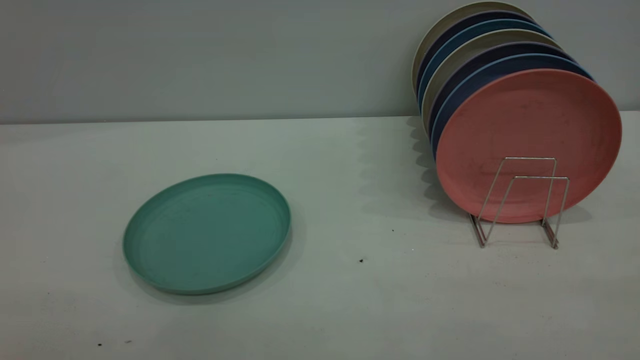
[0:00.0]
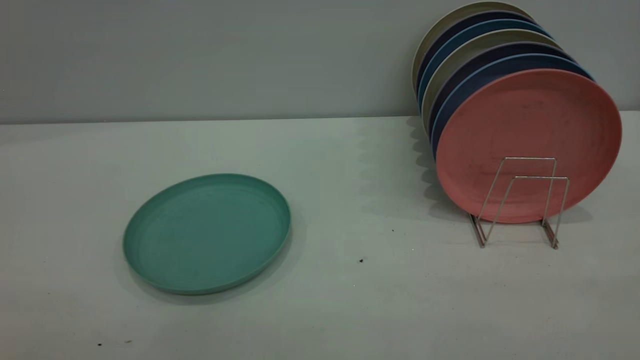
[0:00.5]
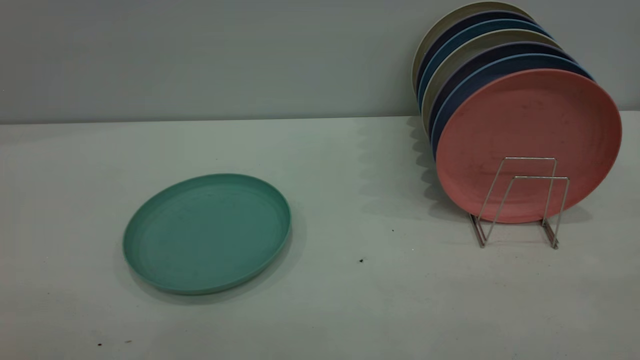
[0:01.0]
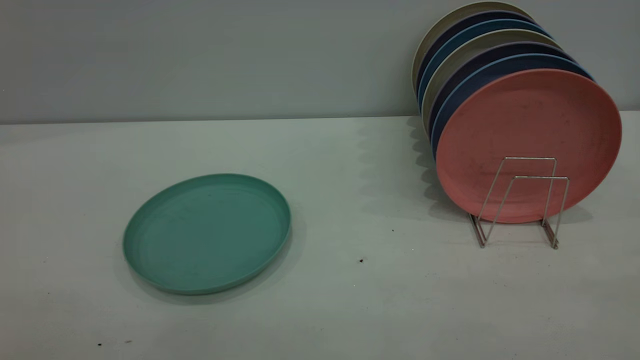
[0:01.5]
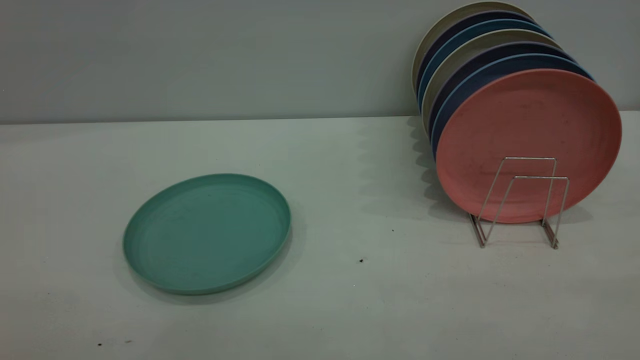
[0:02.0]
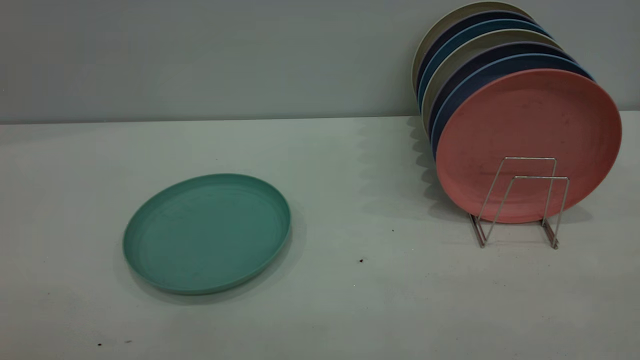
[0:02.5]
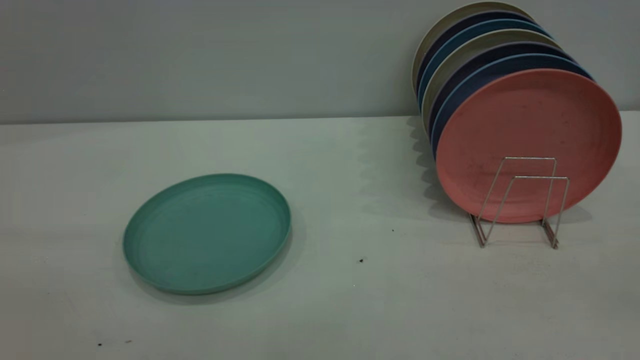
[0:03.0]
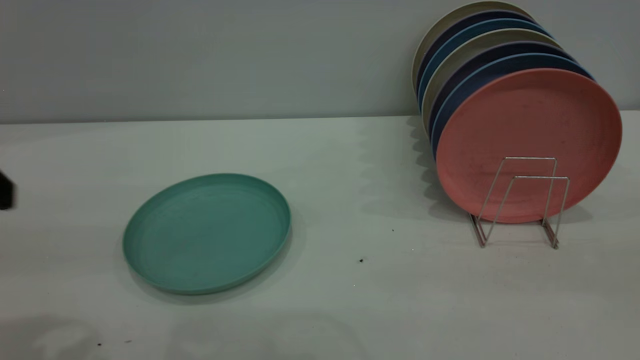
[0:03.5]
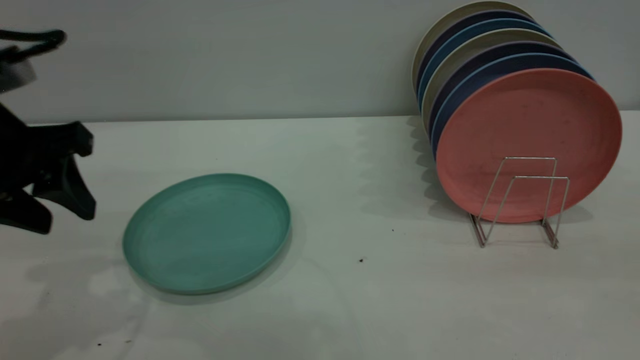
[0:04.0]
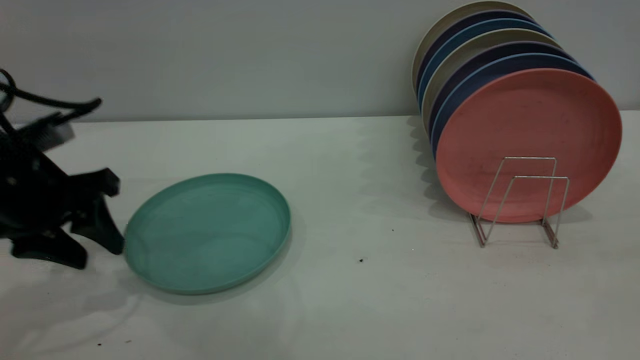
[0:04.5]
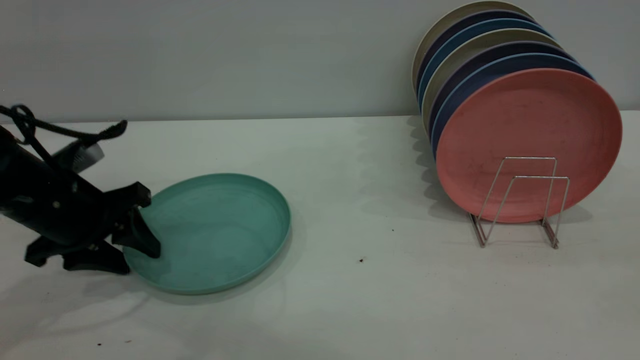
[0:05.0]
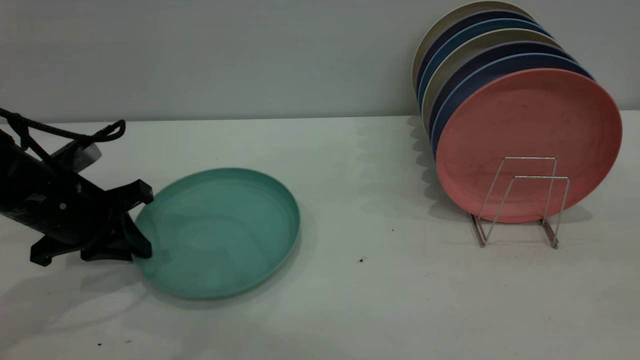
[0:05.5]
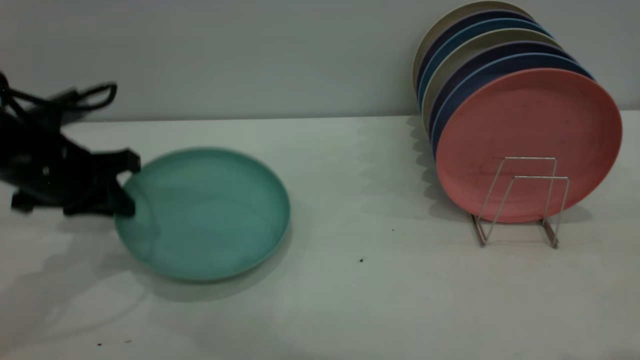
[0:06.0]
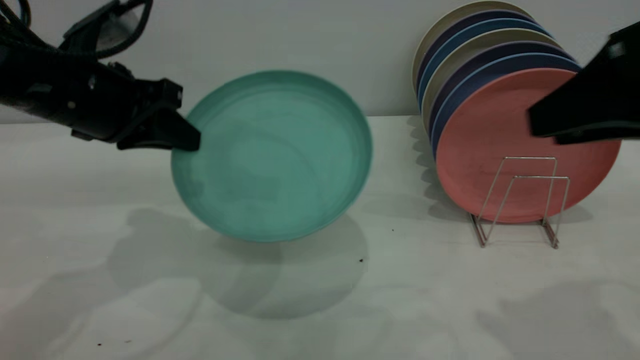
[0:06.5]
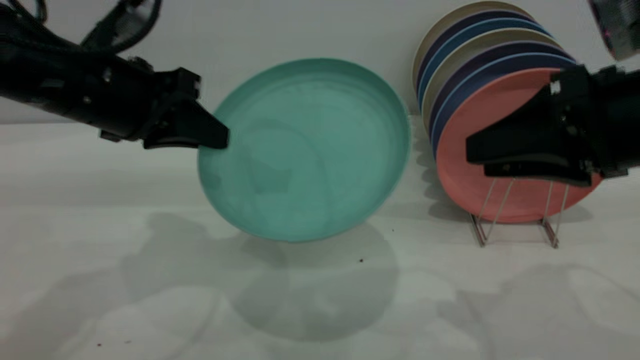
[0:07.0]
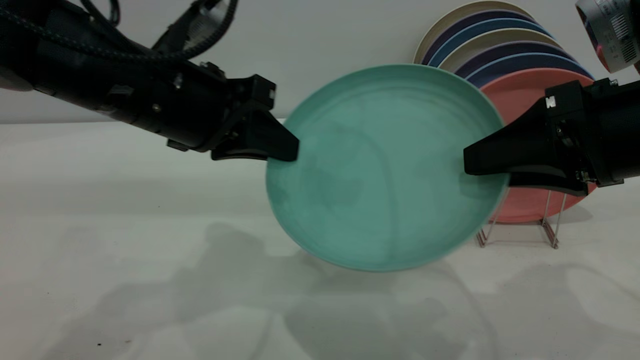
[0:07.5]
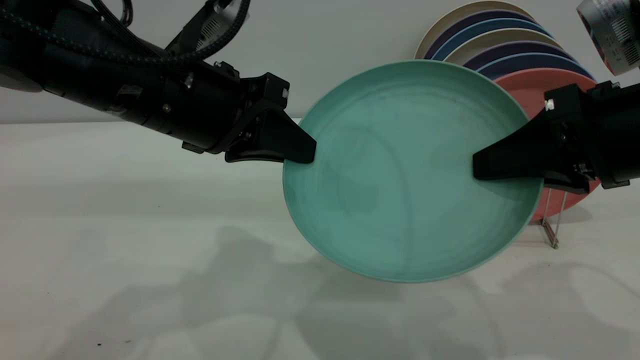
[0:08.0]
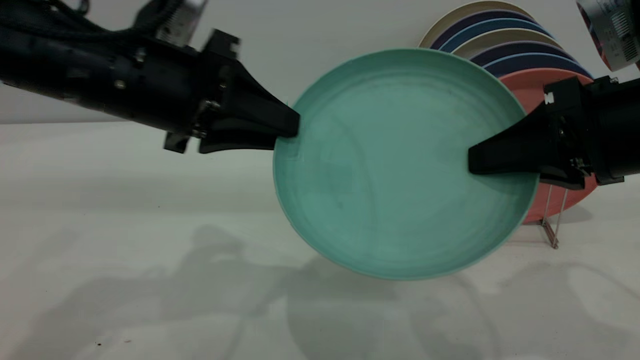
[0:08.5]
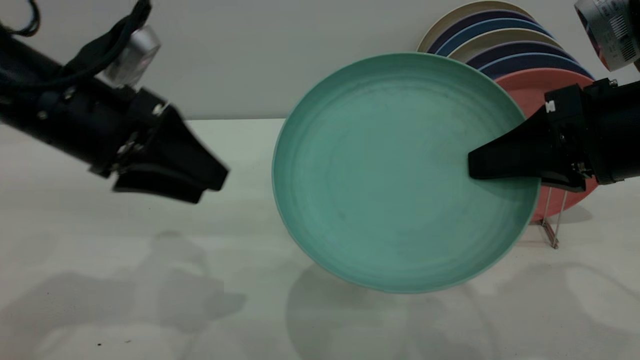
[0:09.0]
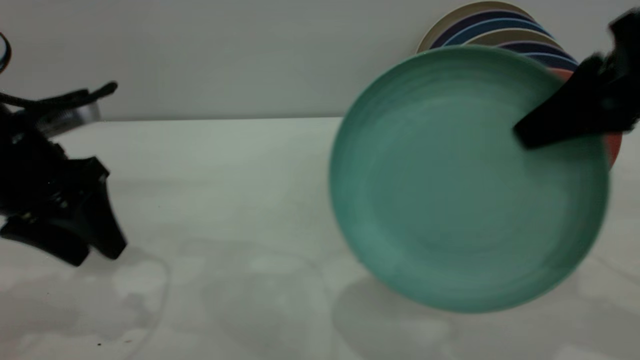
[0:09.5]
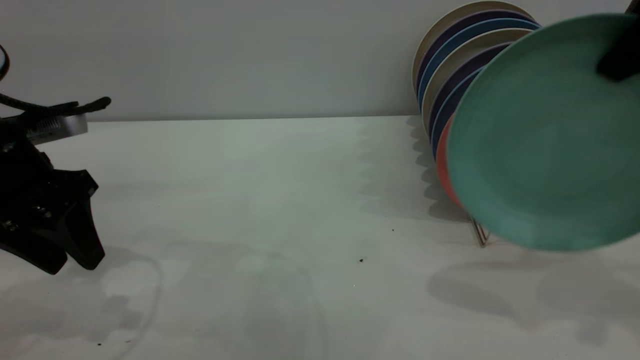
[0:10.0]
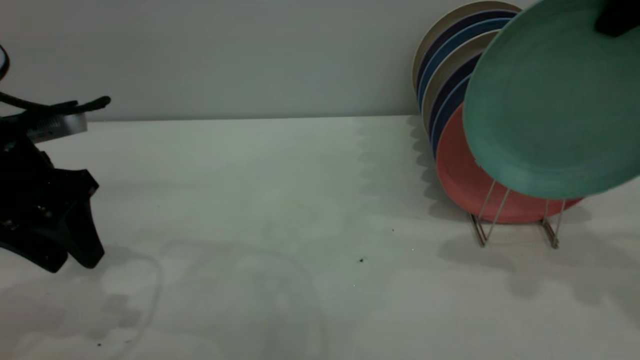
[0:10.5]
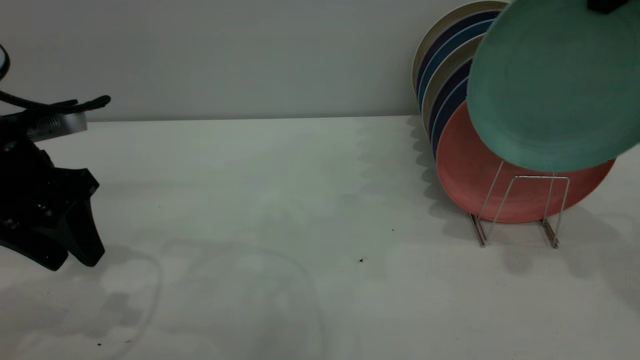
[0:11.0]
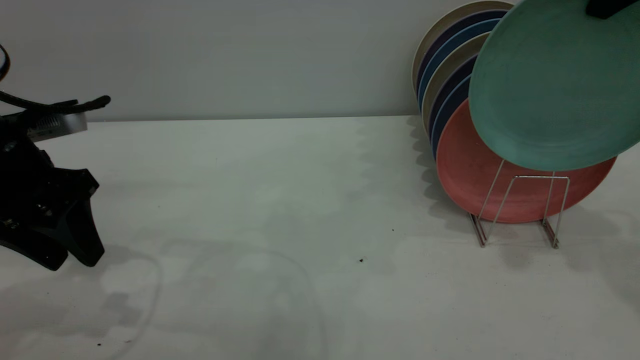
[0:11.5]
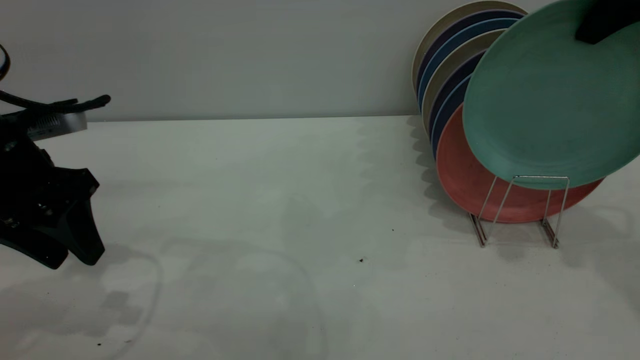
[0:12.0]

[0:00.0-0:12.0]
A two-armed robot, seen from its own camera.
Task of the whole recording: the left gripper grasp the green plate, the left gripper pass the green plate to the right gripper, and the right gripper place the green plate on the plate rack.
Step, 0:00.0 to 0:06.0: Pick up the plate with the left gripper.
Step, 0:06.5 to 0:08.5: Pass the plate from the left gripper to the right gripper.
0:00.0 to 0:02.0: Both grippers stay put.
0:02.0 to 0:04.0: The left gripper moves forward and downward, approximately 35 cm.
0:04.0 to 0:06.0: The left gripper is displaced downward and forward by approximately 10 cm, and closes up.
0:06.0 to 0:08.0: The right gripper moves downward and forward, roughly 15 cm, and closes its fingers. The left gripper moves to the right and upward, approximately 15 cm.
0:08.0 to 0:10.0: The right gripper is displaced upward by some 15 cm. The left gripper heads to the left, covering approximately 15 cm, and opens.
0:10.0 to 0:12.0: The right gripper is displaced forward by roughly 10 cm.

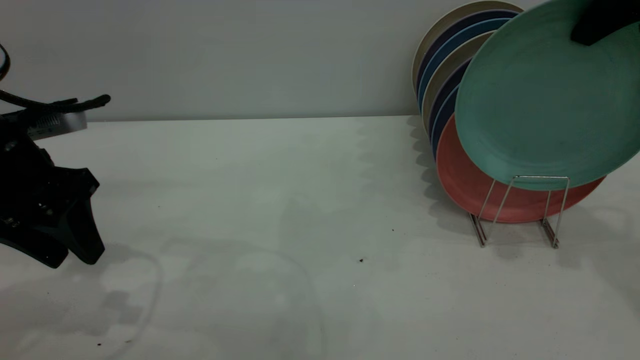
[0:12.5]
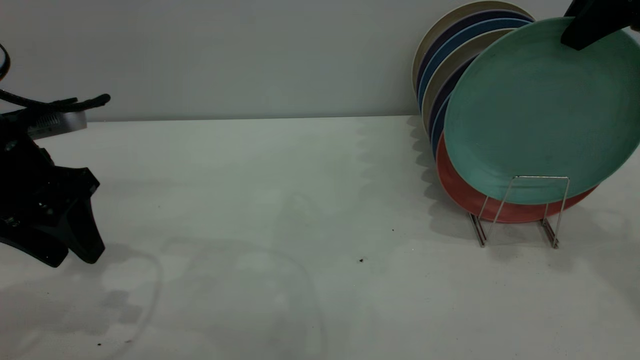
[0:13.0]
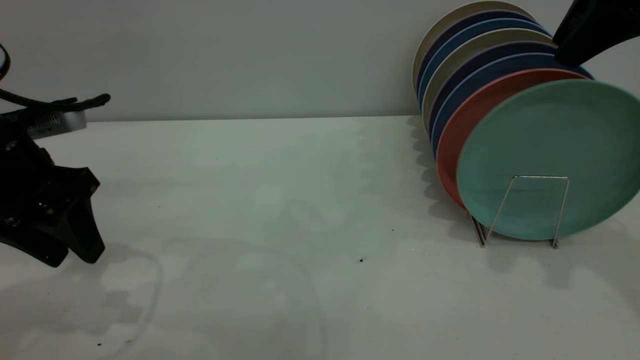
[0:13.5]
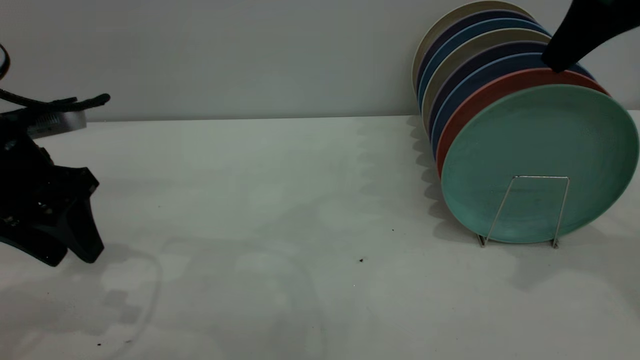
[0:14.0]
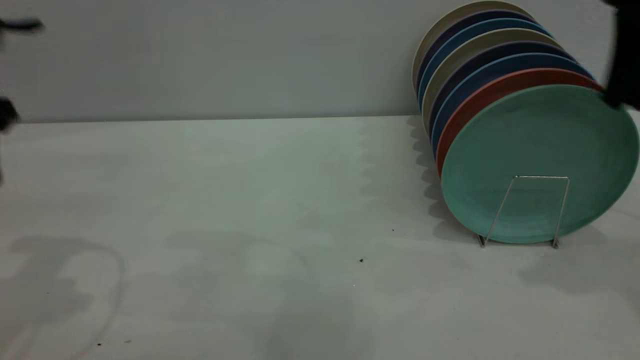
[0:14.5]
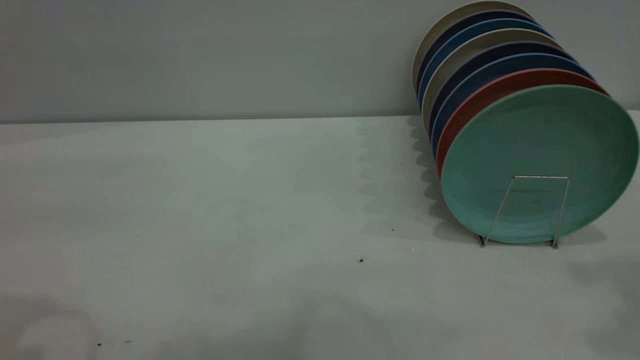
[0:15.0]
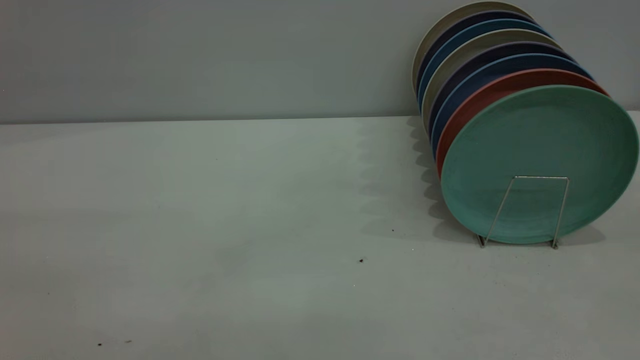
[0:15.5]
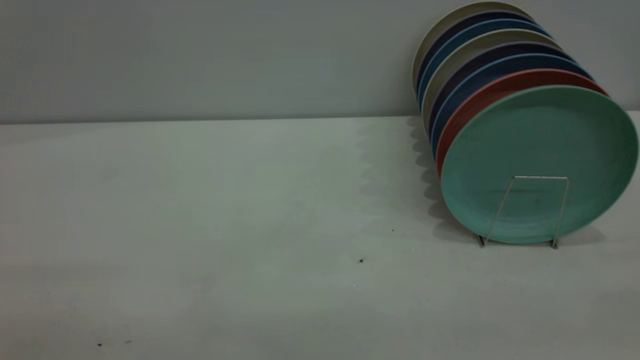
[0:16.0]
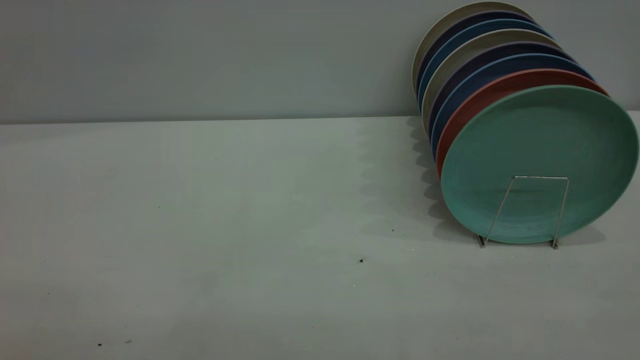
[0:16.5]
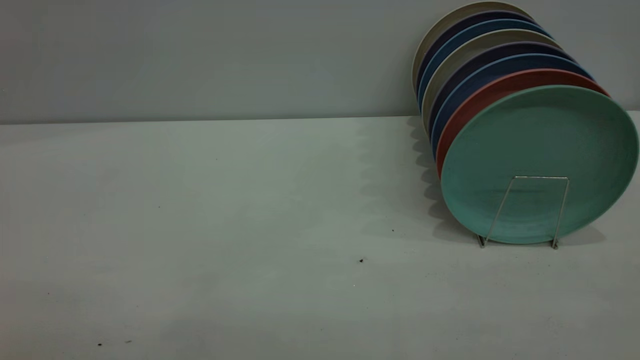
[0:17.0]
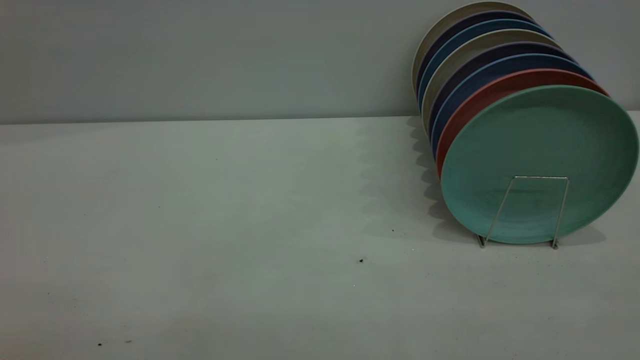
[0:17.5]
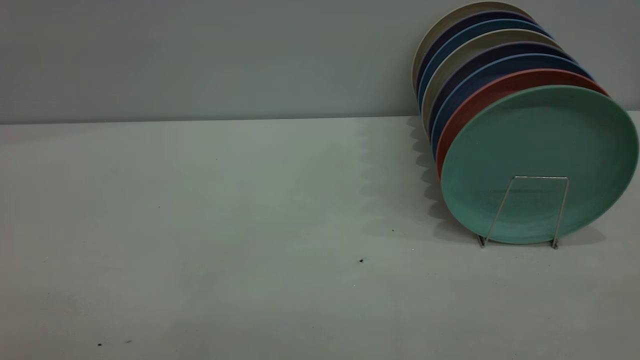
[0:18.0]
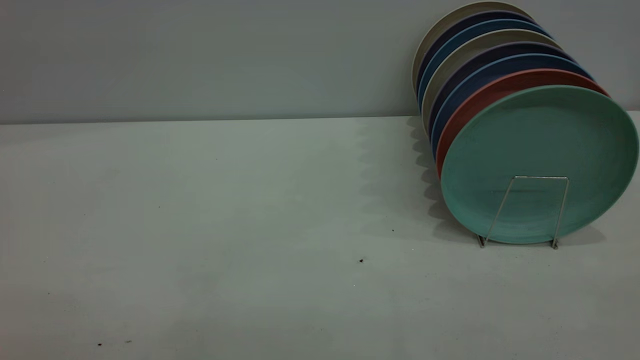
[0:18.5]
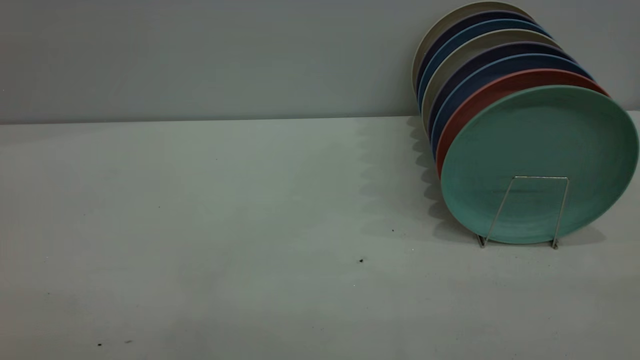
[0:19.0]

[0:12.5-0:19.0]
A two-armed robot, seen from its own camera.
Task of the whole recording: the left gripper grasp the green plate, the left gripper pass the green plate to the right gripper, and the right gripper place the green plate on the plate rack.
Step, 0:12.5 to 0:14.5: Place the plate on the shelf.
0:12.5 to 0:14.5: The right gripper opens up; the left gripper moves upward, approximately 10 cm.
0:14.5 to 0:17.0: The right gripper travels backward by roughly 35 cm.

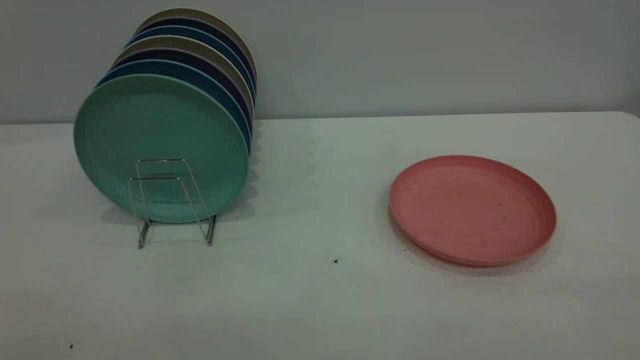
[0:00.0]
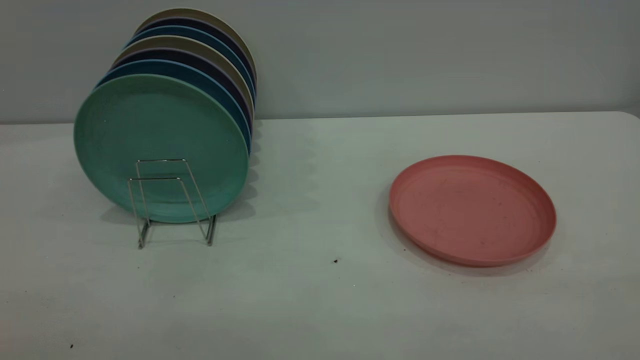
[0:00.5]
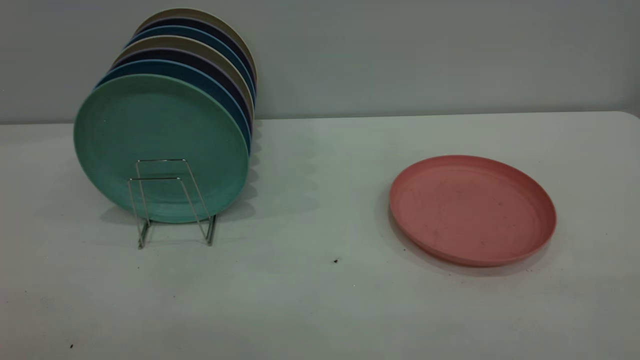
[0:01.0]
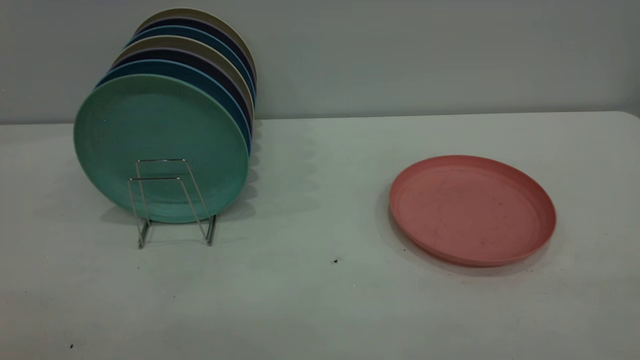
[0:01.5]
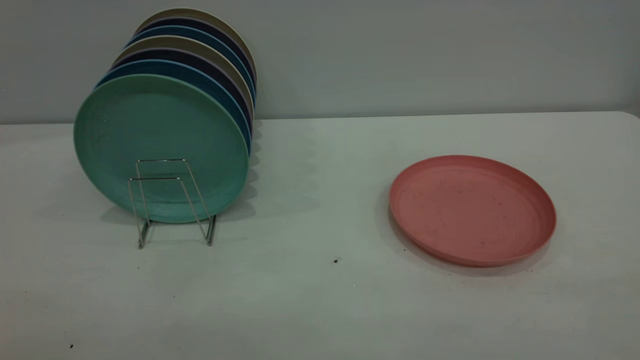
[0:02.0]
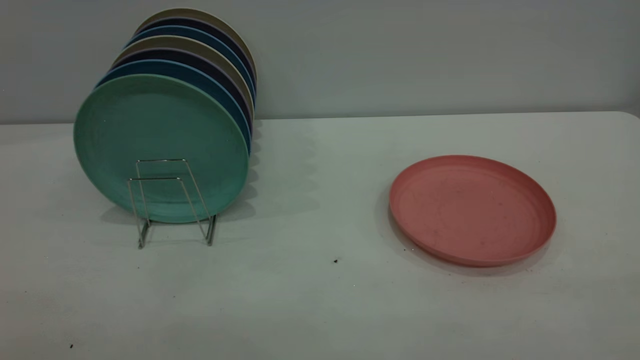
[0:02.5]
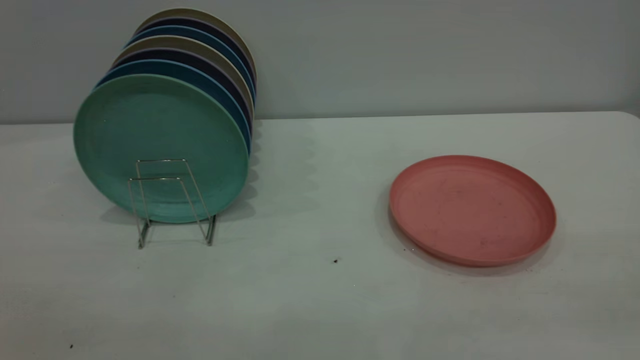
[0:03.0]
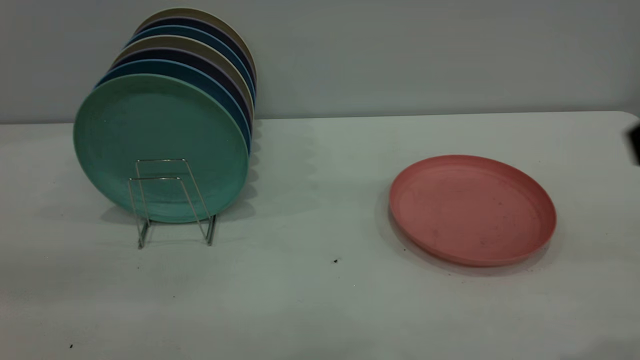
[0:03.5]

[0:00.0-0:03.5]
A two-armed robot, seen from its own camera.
Task of the whole recording: the right gripper grasp the pink plate, the right gripper pass the pink plate to the left gripper, and the left gripper place the pink plate on the plate rack.
0:00.0 to 0:02.0: The two grippers keep their place.
